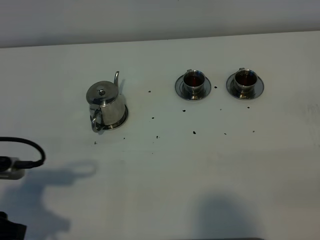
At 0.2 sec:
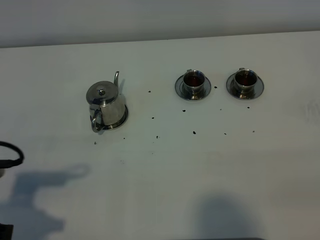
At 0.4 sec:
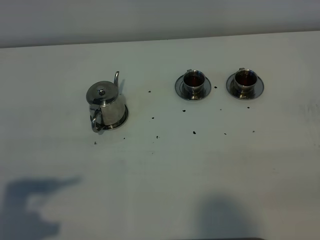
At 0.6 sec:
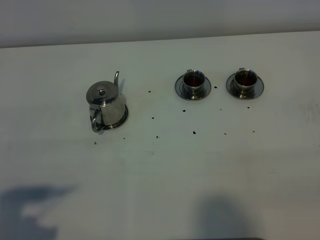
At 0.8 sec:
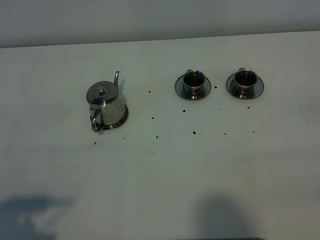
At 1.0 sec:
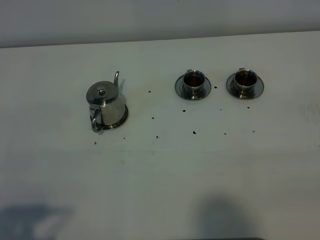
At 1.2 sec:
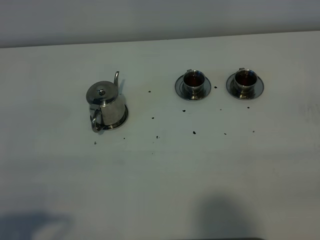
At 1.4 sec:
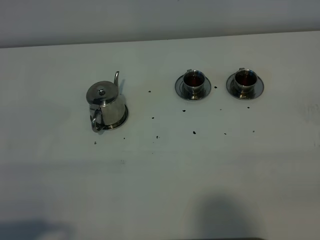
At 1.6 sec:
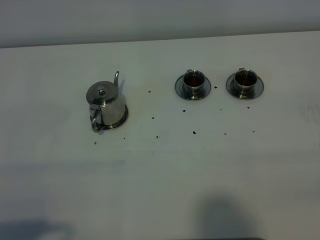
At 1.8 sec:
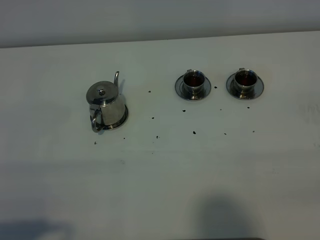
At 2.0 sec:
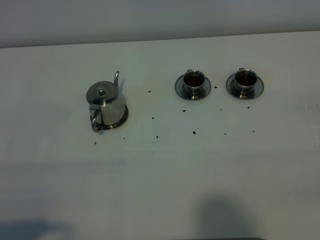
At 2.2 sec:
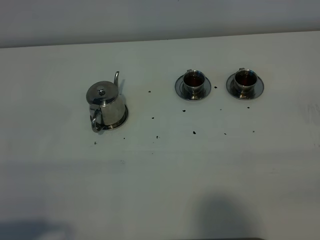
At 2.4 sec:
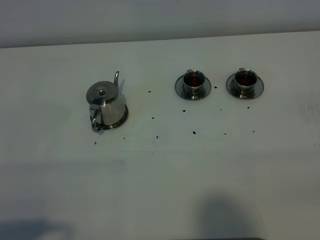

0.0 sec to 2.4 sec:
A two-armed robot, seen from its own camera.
Task of the whole recording: grasp the stainless steel teapot and pour the tea into the two stainless steel teacups one by one, put the stainless steel teapot back in its original place.
0.0 sec to 1.2 sec: The left gripper moves backward, some 10 cm.
1.2 sec to 2.4 sec: Both grippers stay put.
